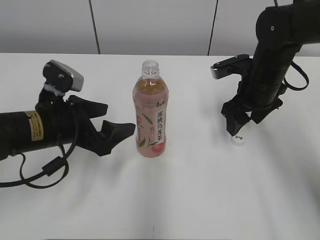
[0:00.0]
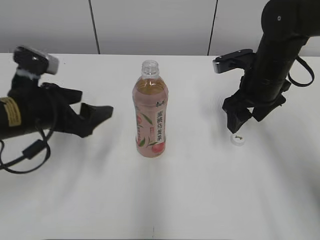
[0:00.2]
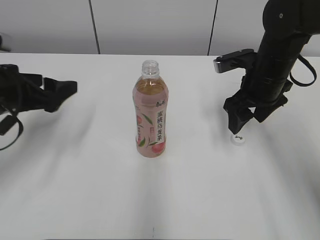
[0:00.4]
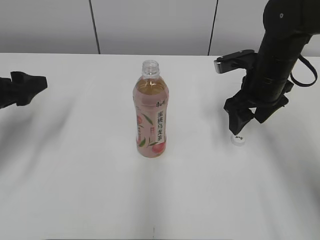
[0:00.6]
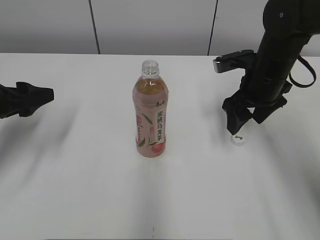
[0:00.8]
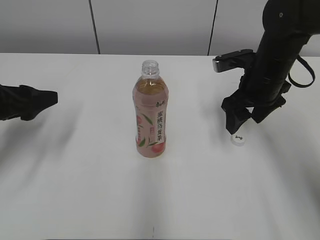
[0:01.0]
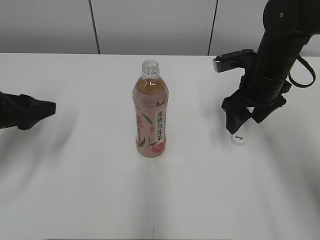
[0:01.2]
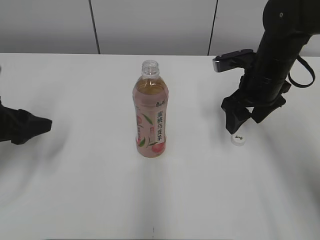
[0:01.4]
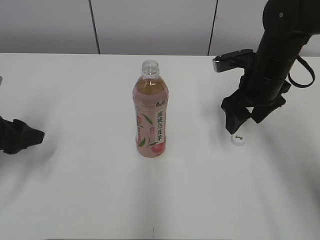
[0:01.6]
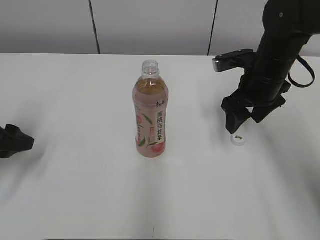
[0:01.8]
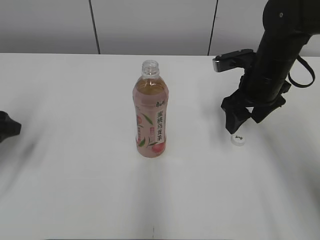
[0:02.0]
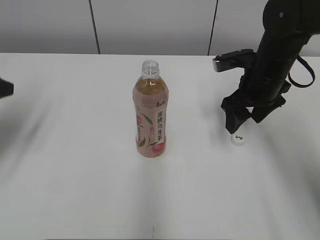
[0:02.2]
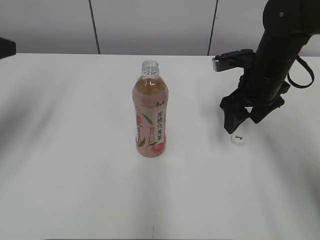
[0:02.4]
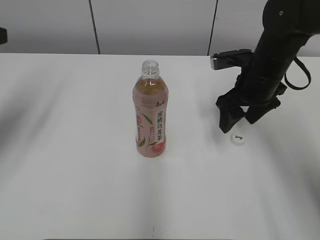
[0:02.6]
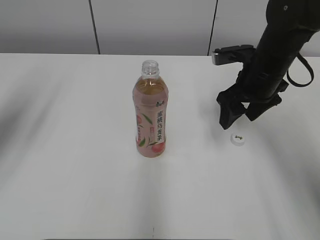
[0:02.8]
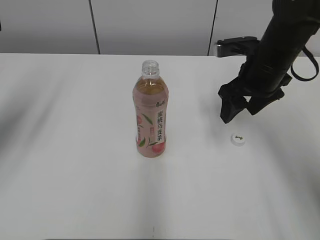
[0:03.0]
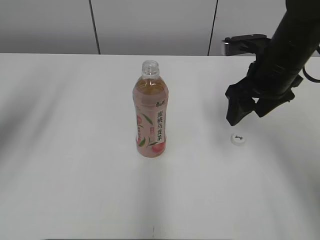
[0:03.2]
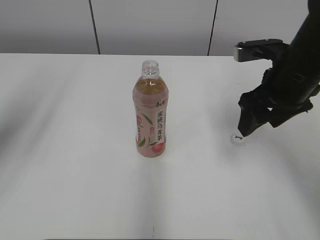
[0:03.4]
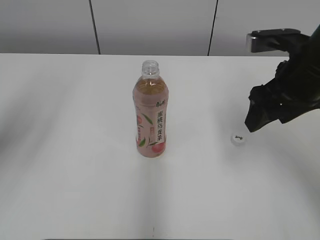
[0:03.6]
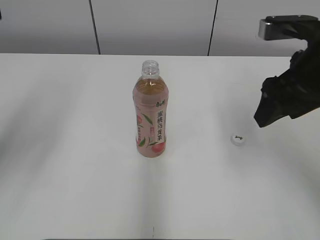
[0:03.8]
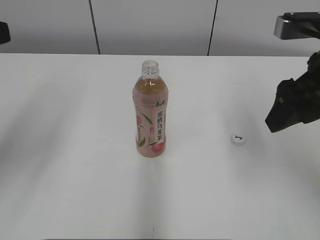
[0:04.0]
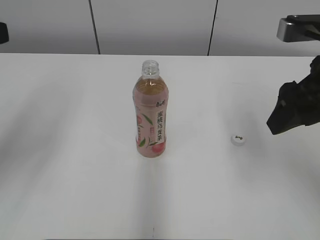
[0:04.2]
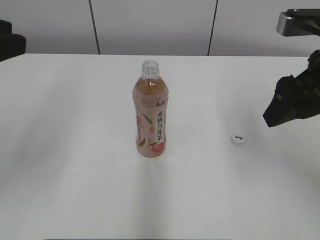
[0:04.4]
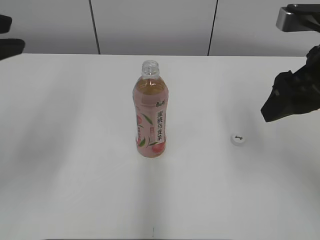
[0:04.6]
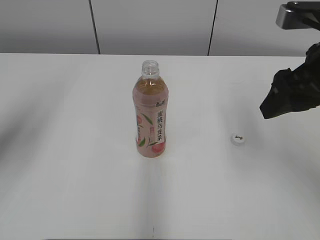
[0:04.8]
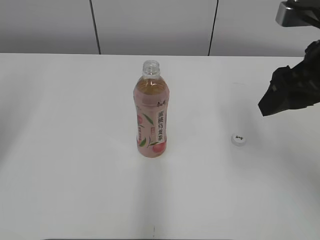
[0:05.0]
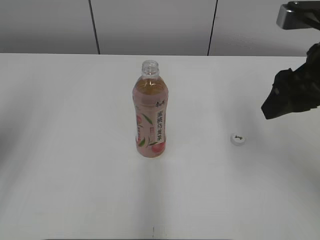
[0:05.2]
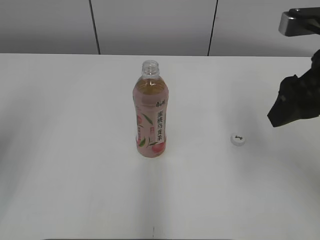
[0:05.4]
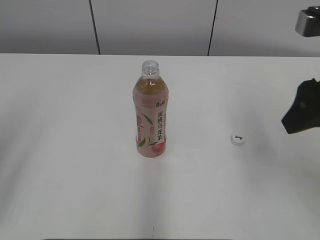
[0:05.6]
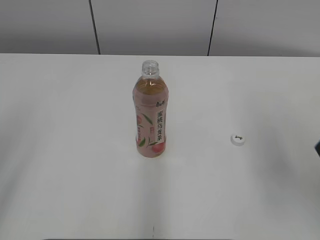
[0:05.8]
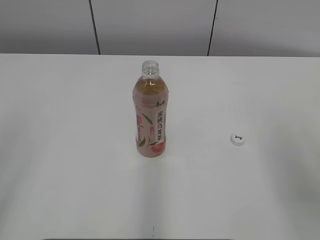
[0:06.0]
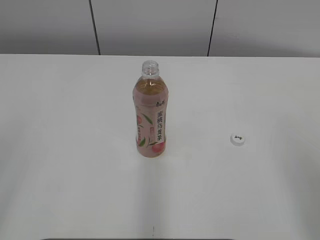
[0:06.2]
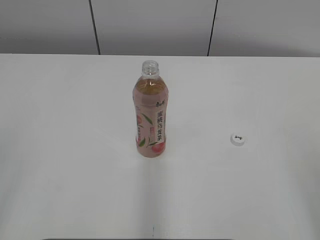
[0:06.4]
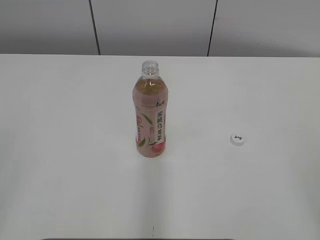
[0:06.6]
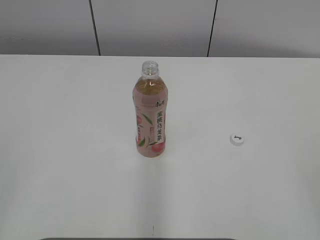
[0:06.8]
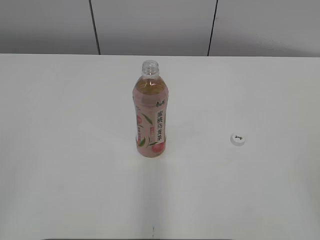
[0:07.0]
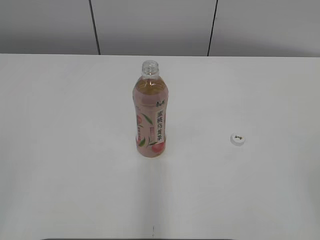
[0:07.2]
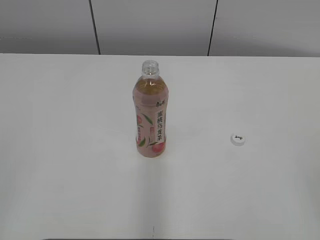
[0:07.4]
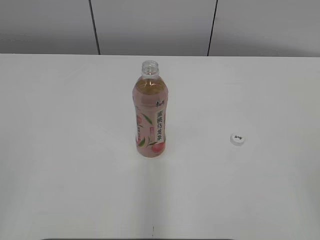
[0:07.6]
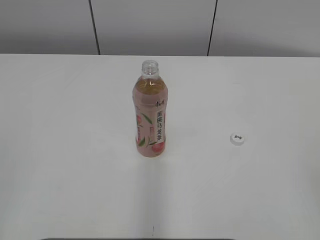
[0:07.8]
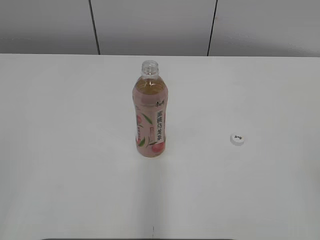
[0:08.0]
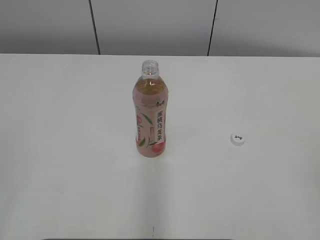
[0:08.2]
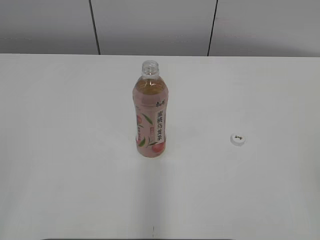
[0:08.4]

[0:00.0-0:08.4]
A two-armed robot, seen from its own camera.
0:00.0 to 0:01.4: The left gripper heads to the left, covering approximately 10 cm.
0:01.4 to 0:02.8: The left gripper moves upward, approximately 15 cm.
0:02.8 to 0:04.2: The left gripper heads backward, covering roughly 5 cm, and closes up. Meanwhile the right gripper moves backward and upward, approximately 15 cm.
0:04.2 to 0:05.6: The left gripper shifts roughly 5 cm backward, and opens.
0:05.6 to 0:07.0: The right gripper travels backward by about 25 cm.

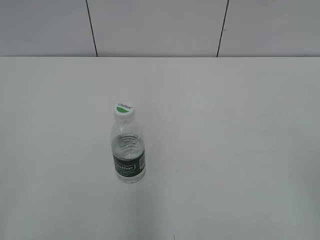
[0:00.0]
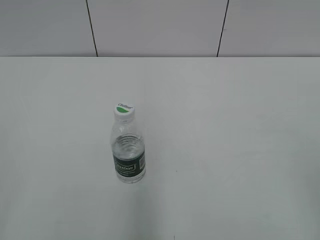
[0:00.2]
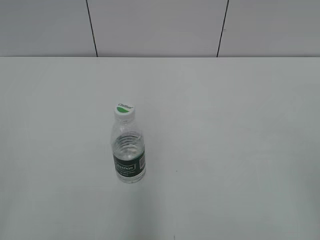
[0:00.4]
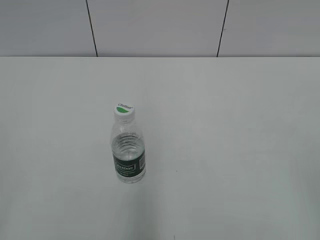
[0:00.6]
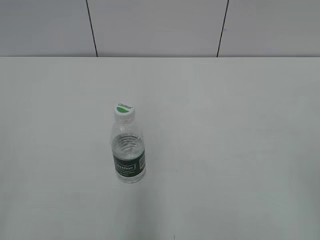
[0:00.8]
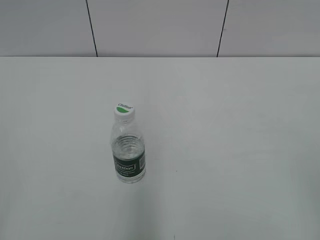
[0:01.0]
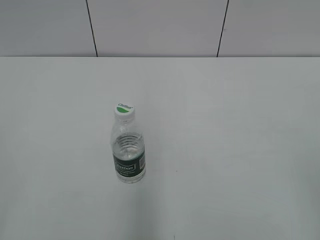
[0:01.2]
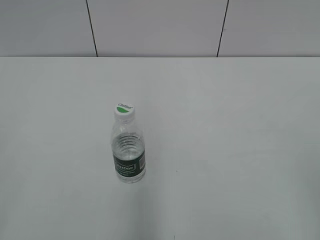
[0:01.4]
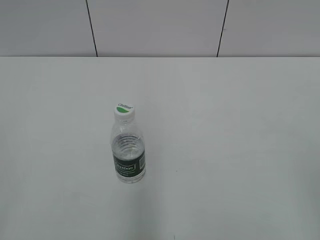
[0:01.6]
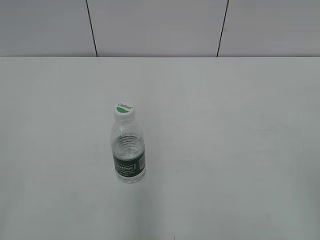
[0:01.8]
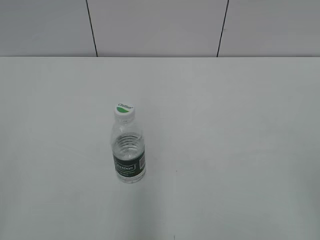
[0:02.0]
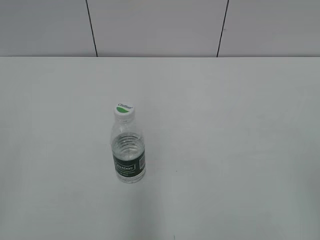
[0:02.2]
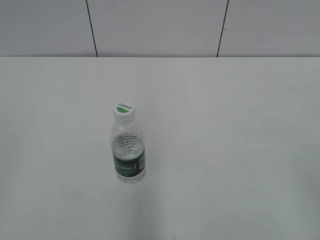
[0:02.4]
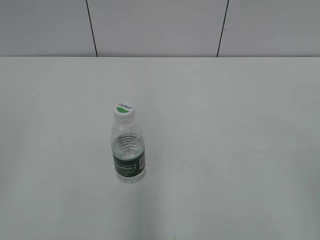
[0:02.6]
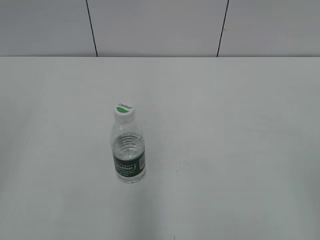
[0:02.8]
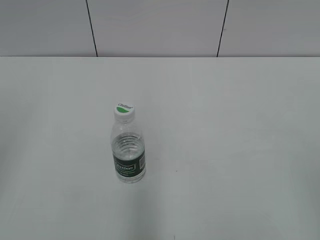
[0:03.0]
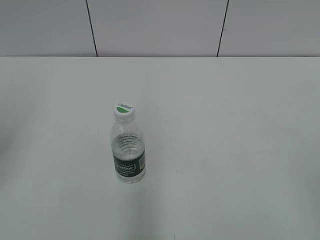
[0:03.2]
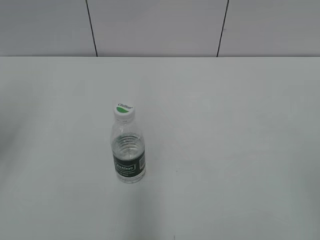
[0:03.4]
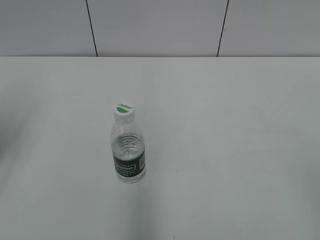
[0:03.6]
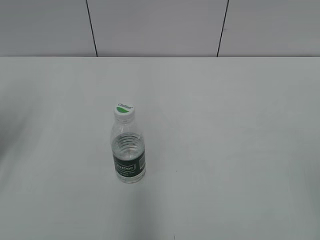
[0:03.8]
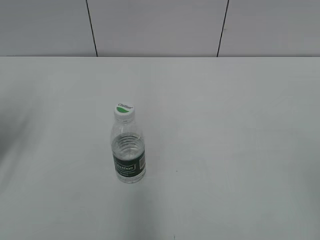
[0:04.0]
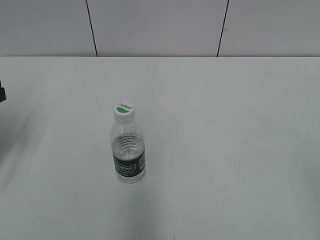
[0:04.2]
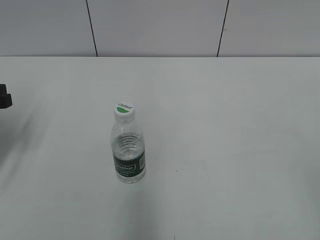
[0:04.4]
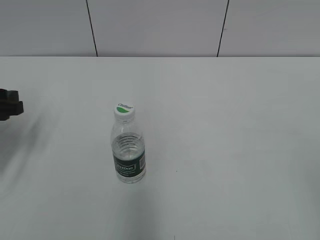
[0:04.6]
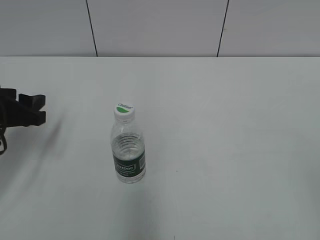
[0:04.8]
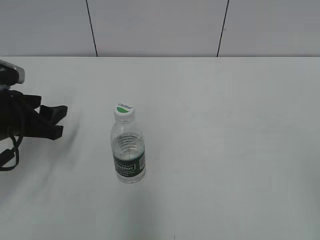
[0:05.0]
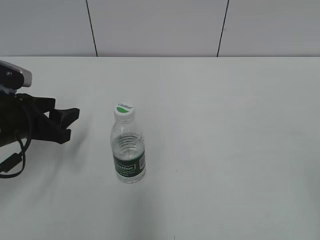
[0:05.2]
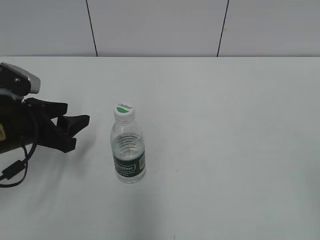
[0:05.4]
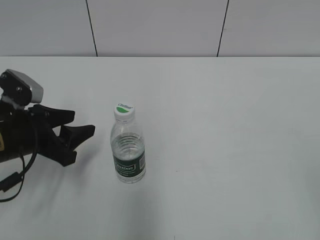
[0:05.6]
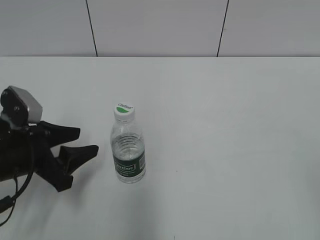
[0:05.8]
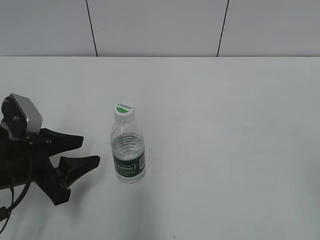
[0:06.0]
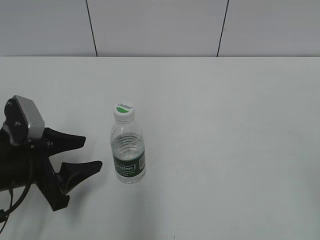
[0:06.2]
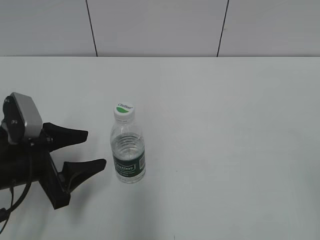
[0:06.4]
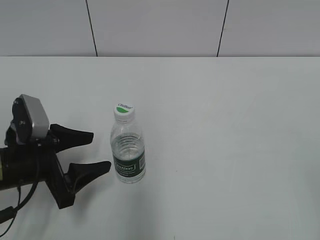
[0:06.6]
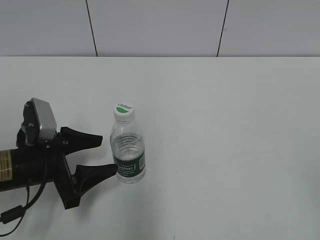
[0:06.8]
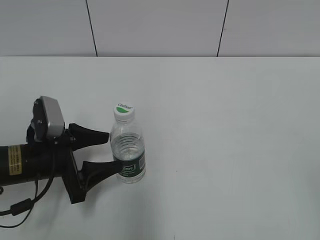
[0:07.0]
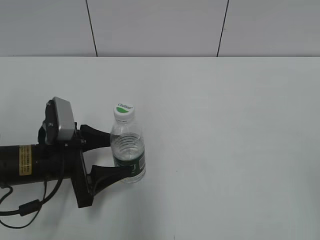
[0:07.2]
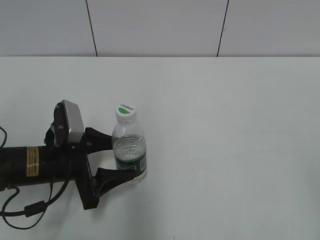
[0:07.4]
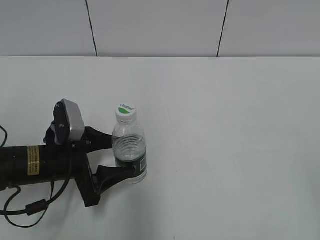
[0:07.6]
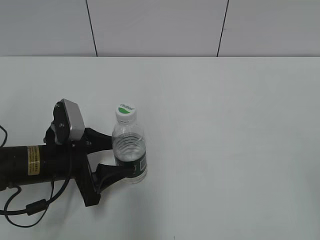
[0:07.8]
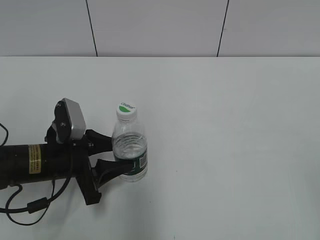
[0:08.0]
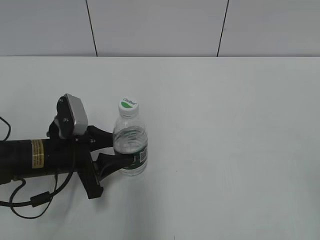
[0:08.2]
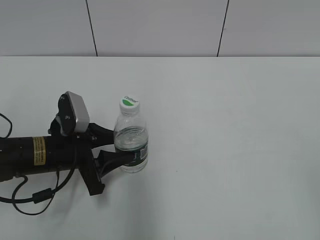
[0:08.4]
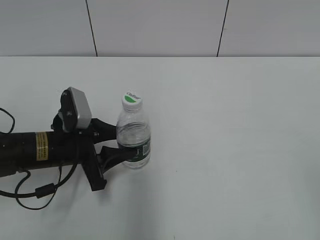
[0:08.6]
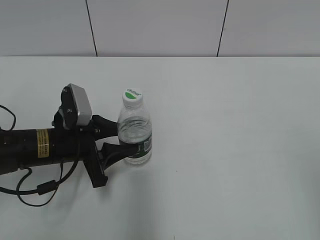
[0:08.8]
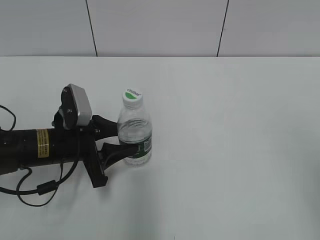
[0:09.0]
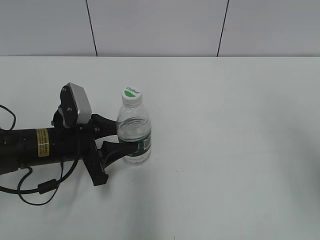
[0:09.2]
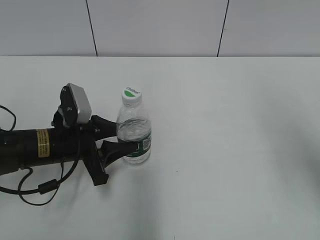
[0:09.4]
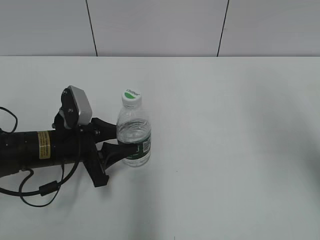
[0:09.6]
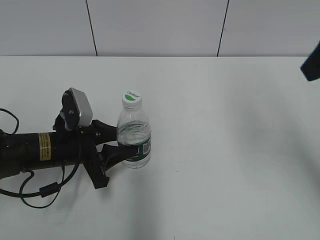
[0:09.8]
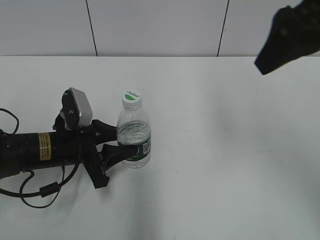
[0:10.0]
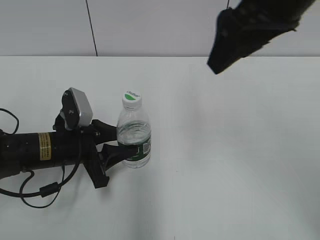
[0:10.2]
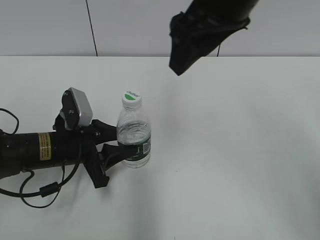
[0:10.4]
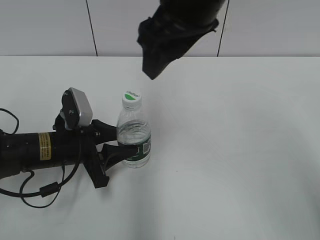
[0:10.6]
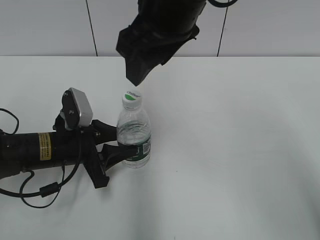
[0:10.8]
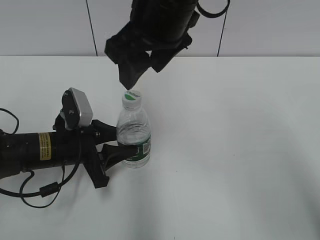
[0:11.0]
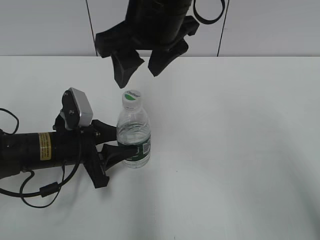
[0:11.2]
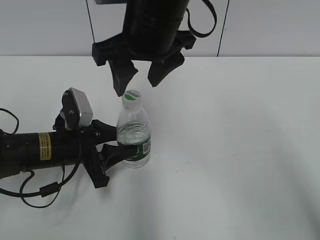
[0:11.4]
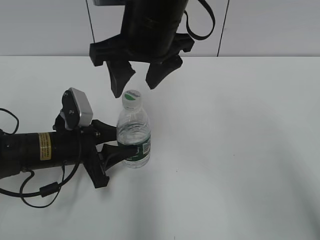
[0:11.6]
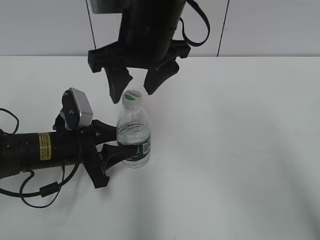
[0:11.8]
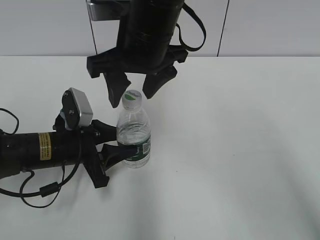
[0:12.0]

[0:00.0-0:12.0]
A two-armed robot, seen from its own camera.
Step, 0:00.0 to 0:08.2: Grasp the bottle and move it to the center of the table with the left gripper.
0:03.0 to 0:04.4: The left gripper shifts roughly 20 cm downward and forward.
0:04.4 to 0:06.0: The left gripper goes some 15 cm to the right, backward and downward.
0:06.0 to 0:07.6: The left gripper moves about 5 cm, and opens up.
0:07.6 to 0:09.0: The left gripper closes its fingers. The right gripper is displaced forward by about 10 cm.
0:09.0 to 0:10.4: The right gripper goes some 30 cm to the left and forward.
0:10.4 to 0:12.0: The right gripper goes approximately 10 cm to the left and downward.

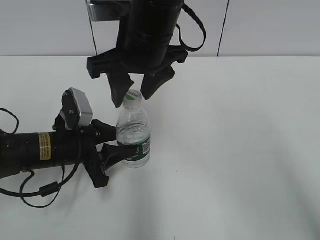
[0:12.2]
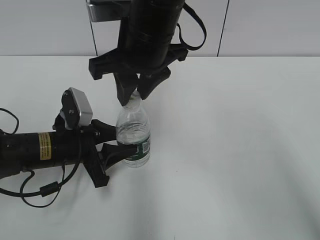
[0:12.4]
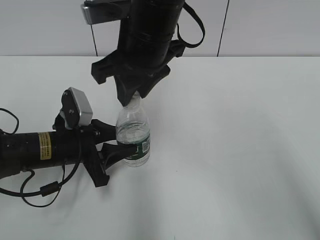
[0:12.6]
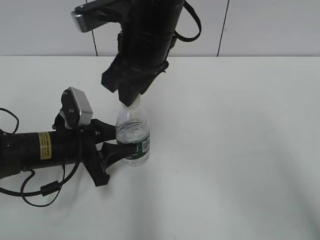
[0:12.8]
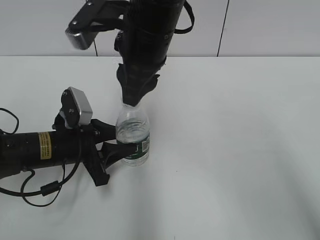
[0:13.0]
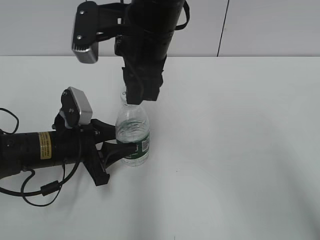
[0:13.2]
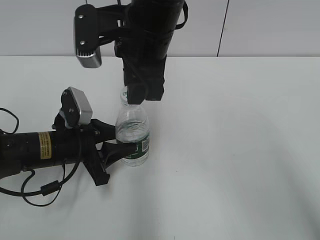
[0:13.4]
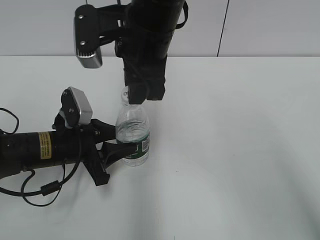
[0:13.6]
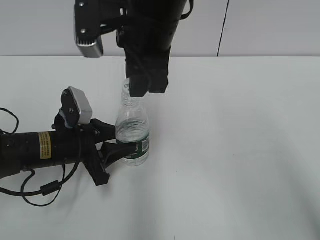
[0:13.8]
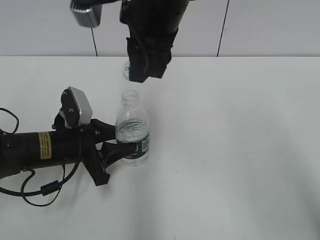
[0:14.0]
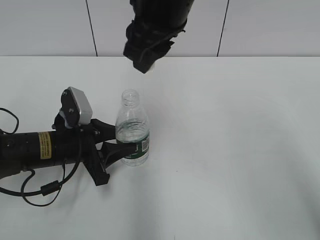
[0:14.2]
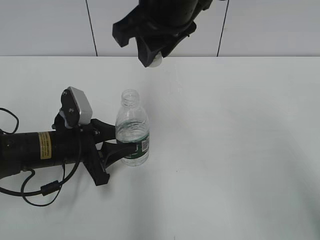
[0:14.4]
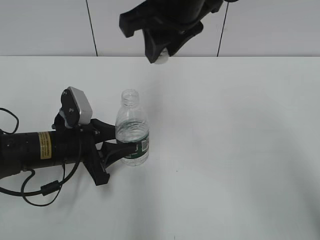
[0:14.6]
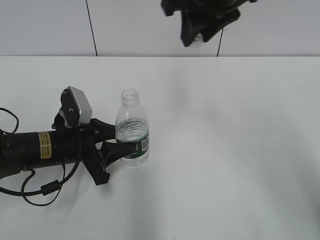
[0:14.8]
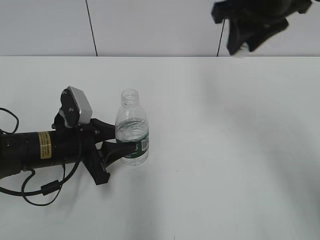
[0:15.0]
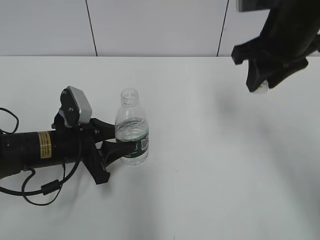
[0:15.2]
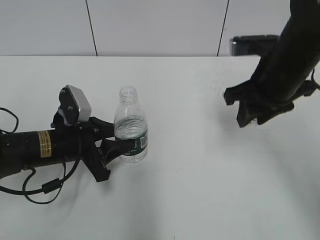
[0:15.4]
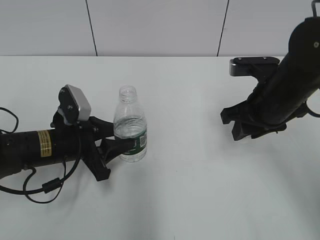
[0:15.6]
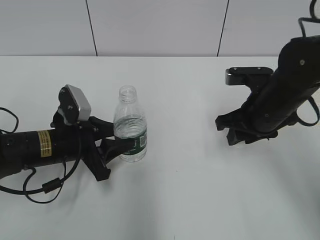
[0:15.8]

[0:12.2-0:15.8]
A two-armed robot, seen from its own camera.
0:12.2 to 0:14.0: The right gripper goes about 5 cm upward, and closes.
0:14.0 to 0:15.8: The right gripper travels downward and to the right by some 25 cm.
